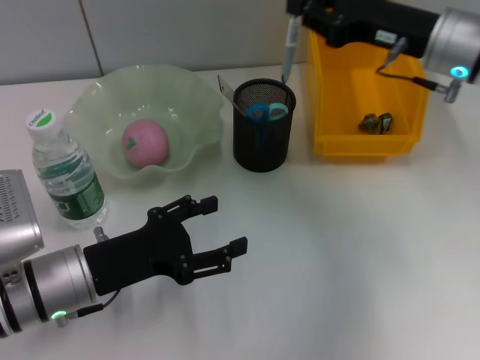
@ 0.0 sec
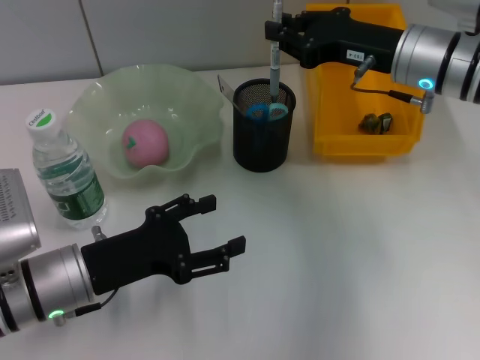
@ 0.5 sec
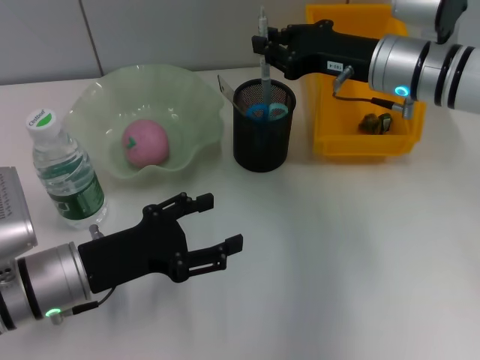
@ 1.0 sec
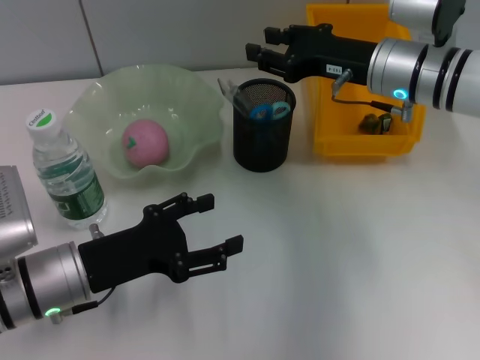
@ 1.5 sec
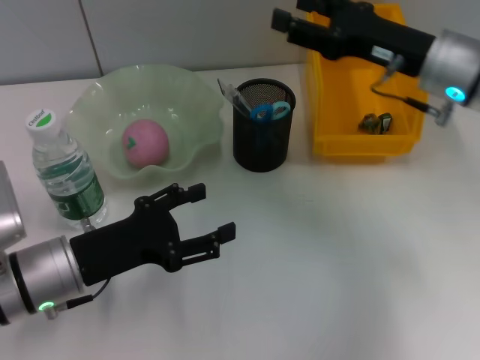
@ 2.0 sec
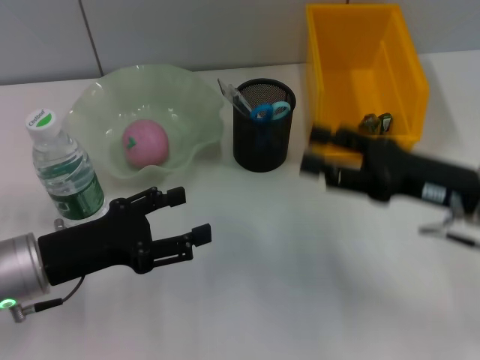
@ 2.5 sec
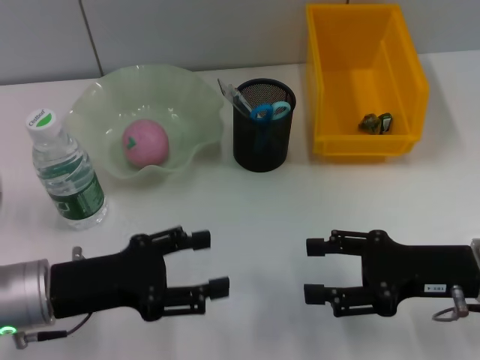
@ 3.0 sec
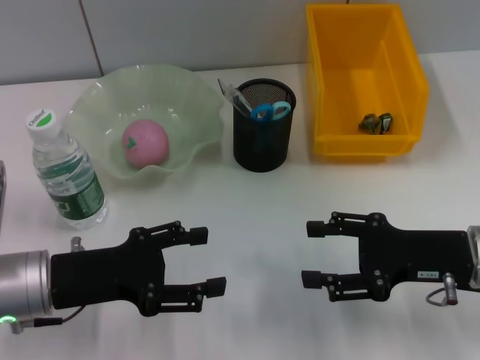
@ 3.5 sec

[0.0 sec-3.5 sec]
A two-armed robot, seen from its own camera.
0.0 sec to 2.0 sec: The right gripper opens up.
2.0 sec to 3.5 sec: The right gripper moves backward and downward, about 15 cm.
